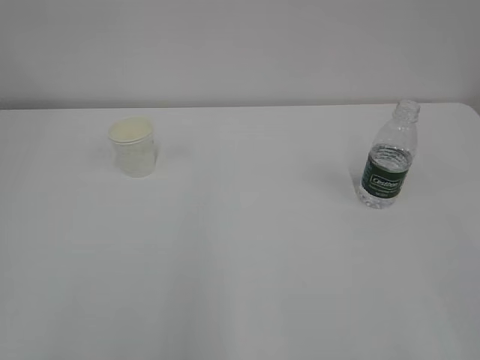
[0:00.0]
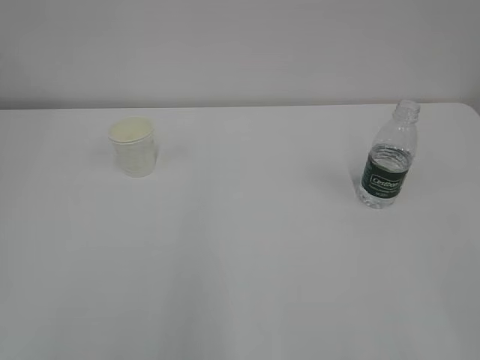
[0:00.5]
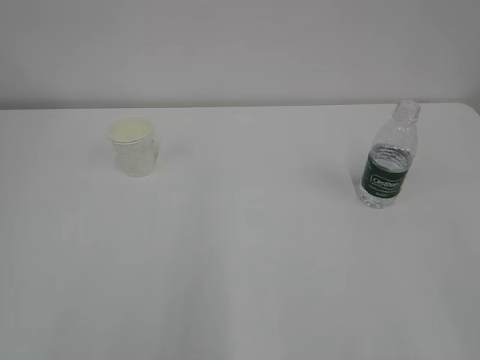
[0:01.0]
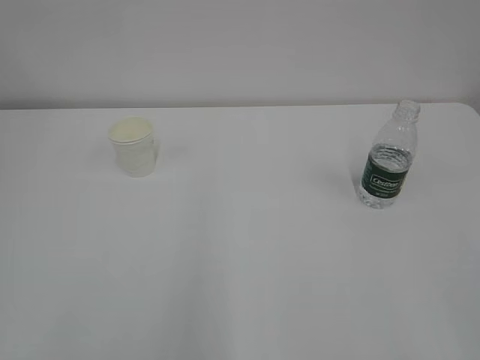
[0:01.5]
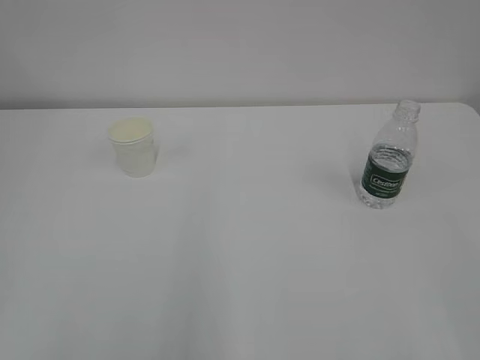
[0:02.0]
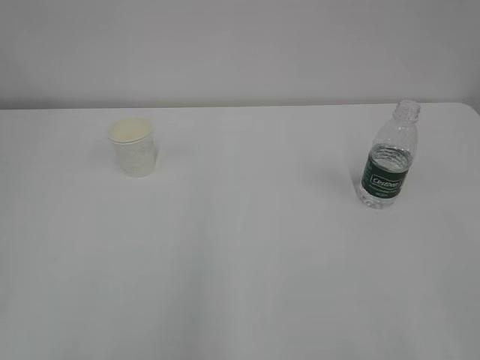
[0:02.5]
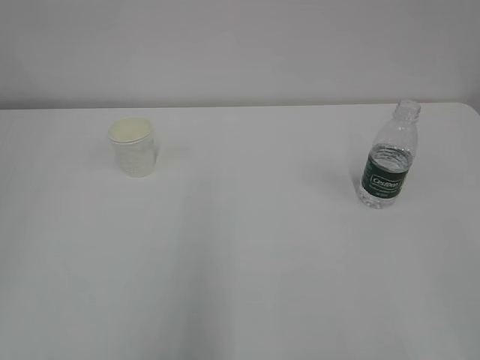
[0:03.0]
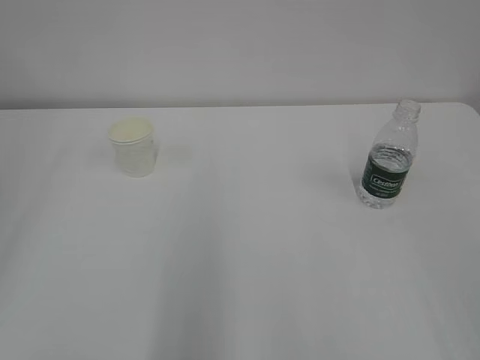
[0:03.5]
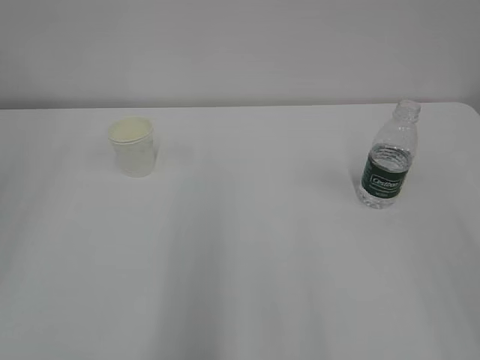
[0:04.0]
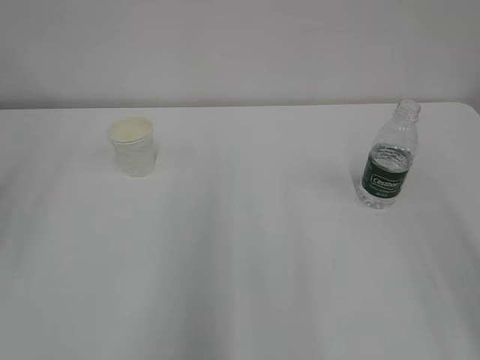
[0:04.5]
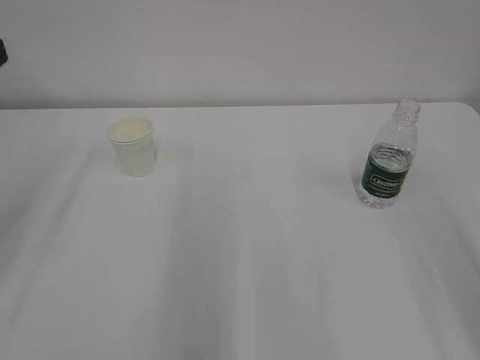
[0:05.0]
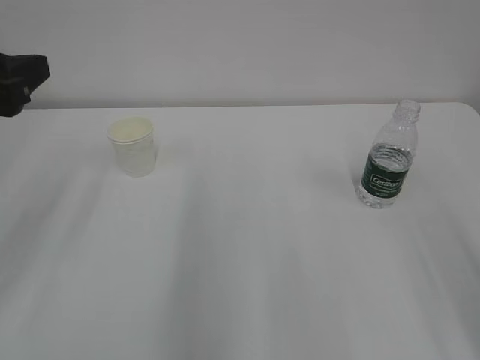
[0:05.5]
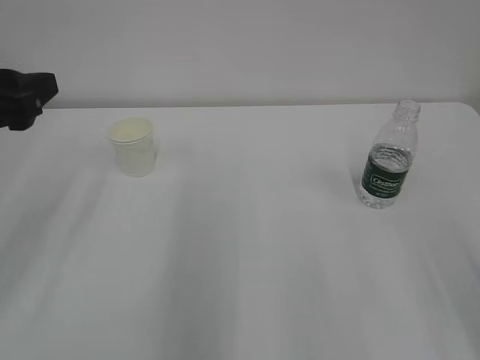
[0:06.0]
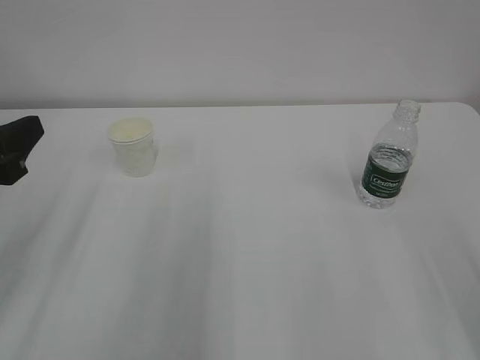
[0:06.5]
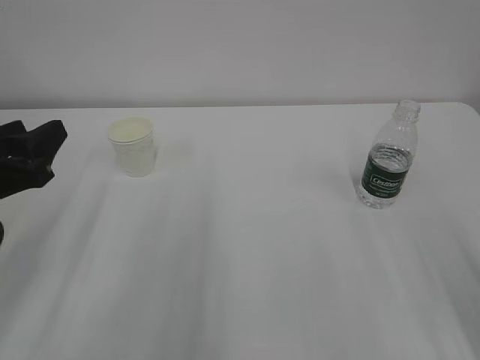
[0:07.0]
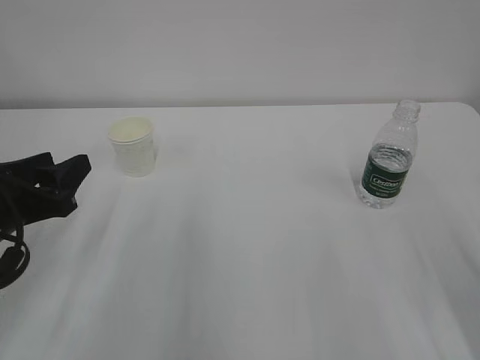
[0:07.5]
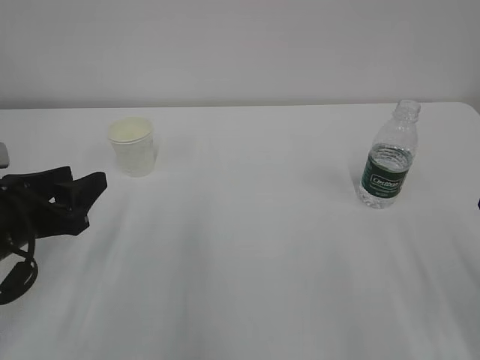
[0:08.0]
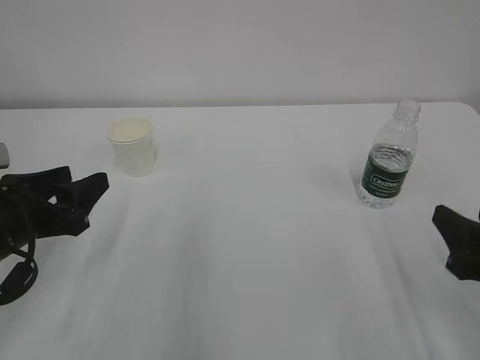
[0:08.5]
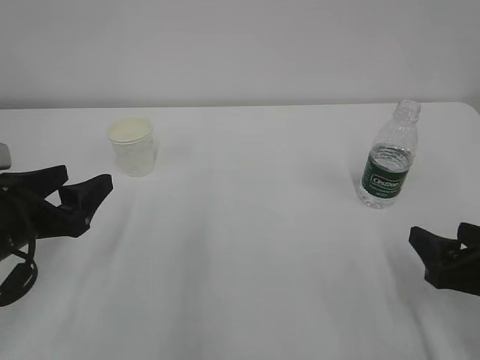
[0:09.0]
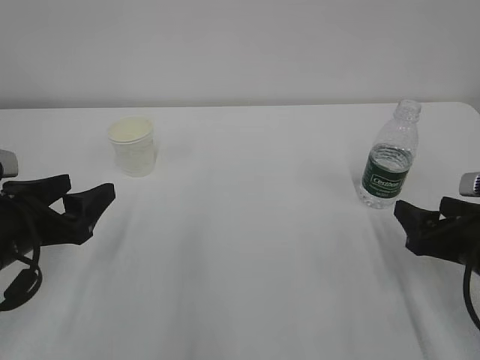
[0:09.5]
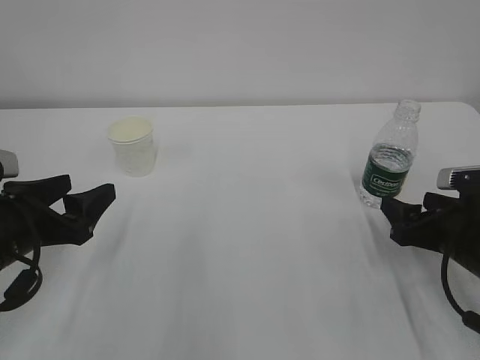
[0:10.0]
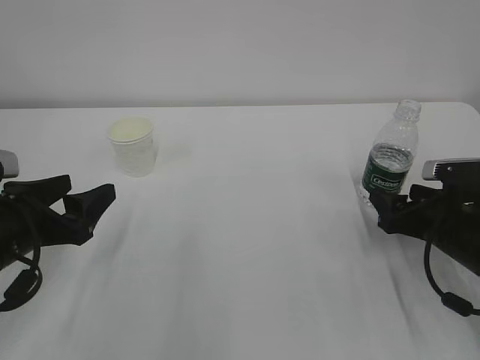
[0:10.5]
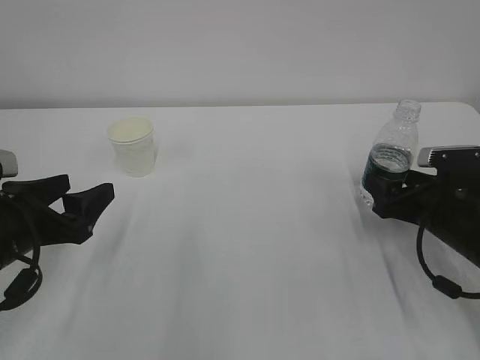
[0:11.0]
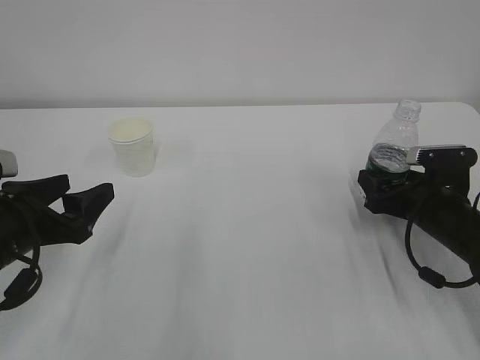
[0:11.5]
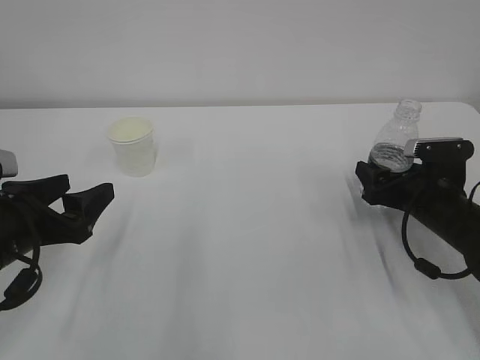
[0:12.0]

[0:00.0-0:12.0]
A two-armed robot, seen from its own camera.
0:04.0 to 0:06.0: The left gripper goes some 15 cm forward, downward and to the right.
0:06.0 to 0:08.0: The left gripper moves downward, roughly 10 cm.
0:08.0 to 0:10.0: The left gripper opens its fingers. The right gripper shifts approximately 15 cm forward and downward, and opens up.
0:10.0 to 0:12.0: The right gripper heads forward, covering roughly 10 cm.

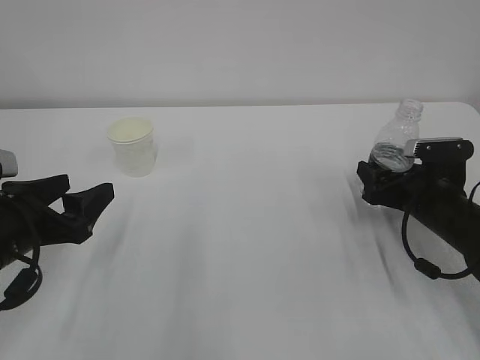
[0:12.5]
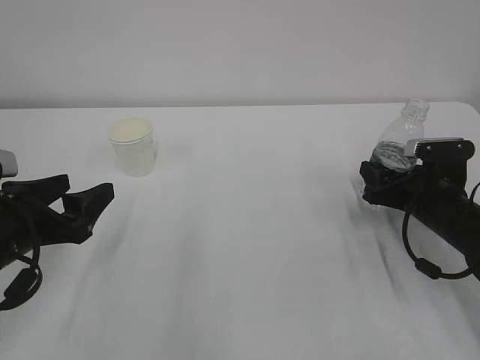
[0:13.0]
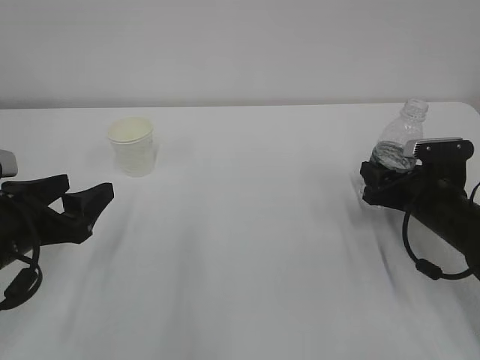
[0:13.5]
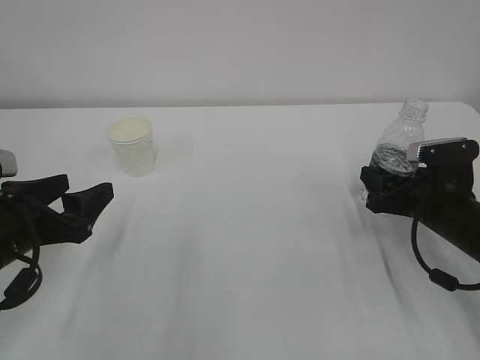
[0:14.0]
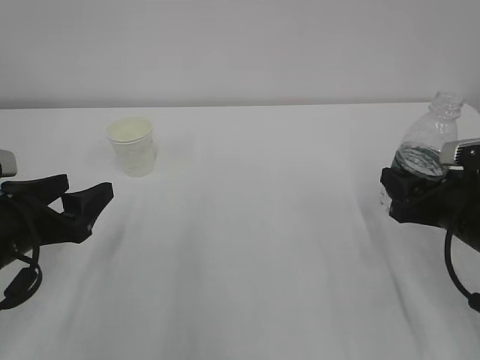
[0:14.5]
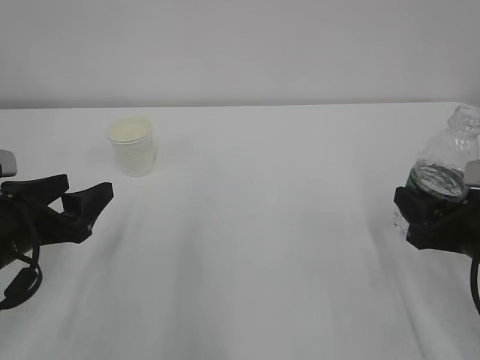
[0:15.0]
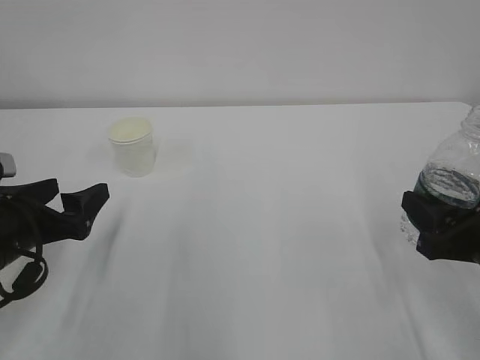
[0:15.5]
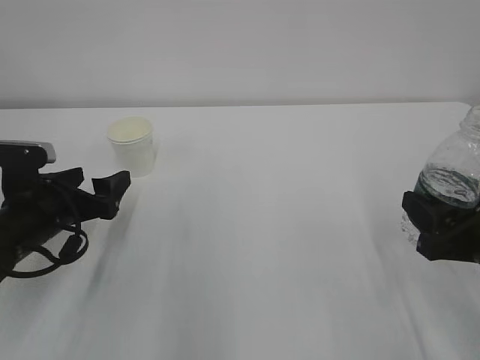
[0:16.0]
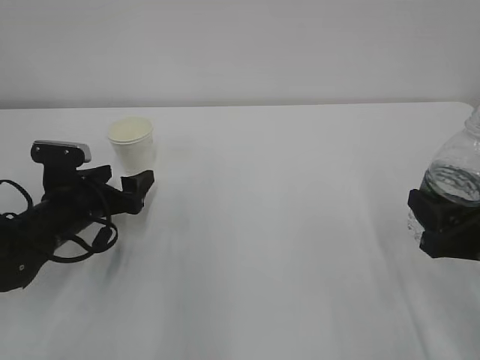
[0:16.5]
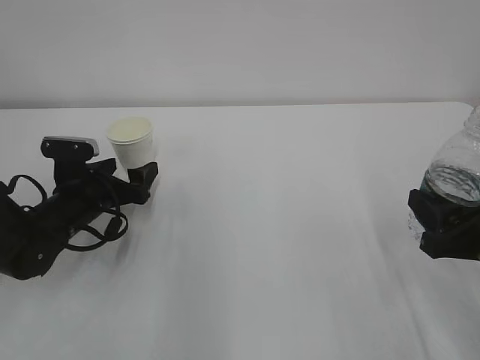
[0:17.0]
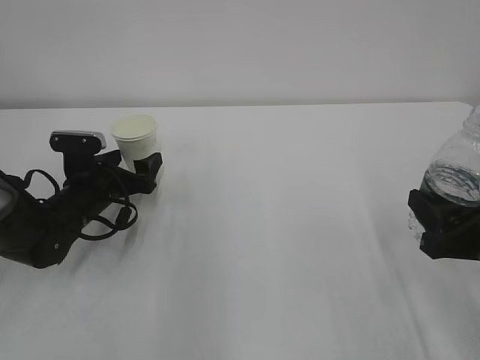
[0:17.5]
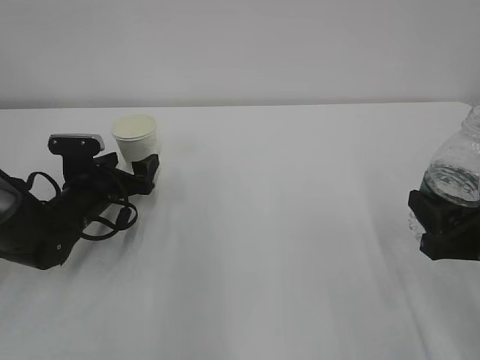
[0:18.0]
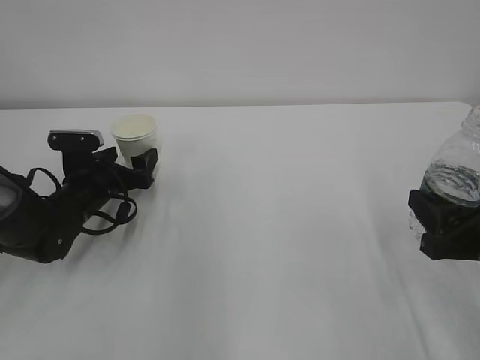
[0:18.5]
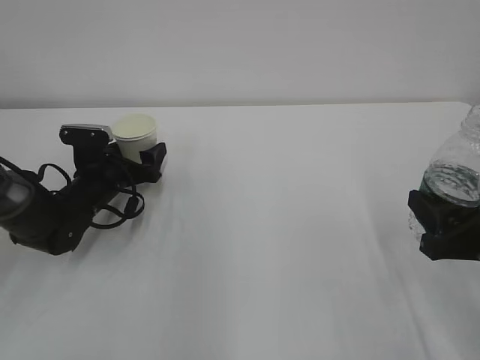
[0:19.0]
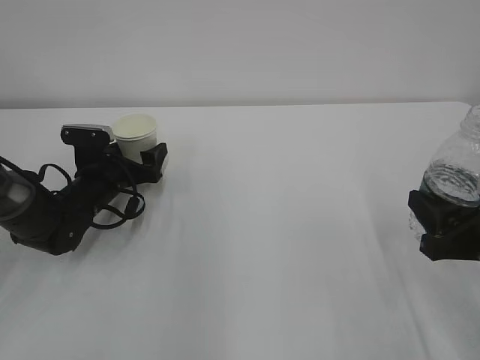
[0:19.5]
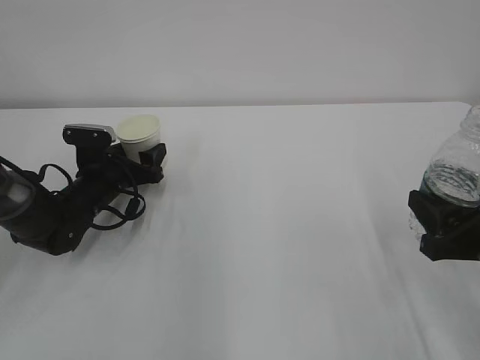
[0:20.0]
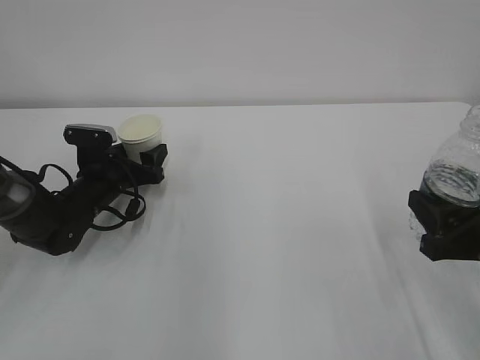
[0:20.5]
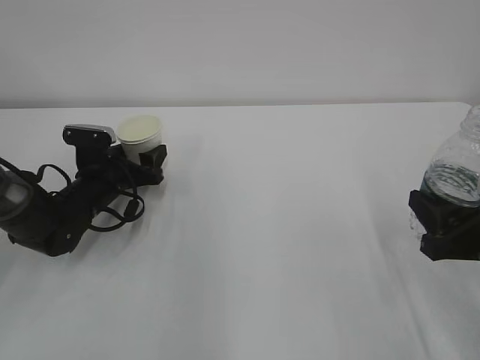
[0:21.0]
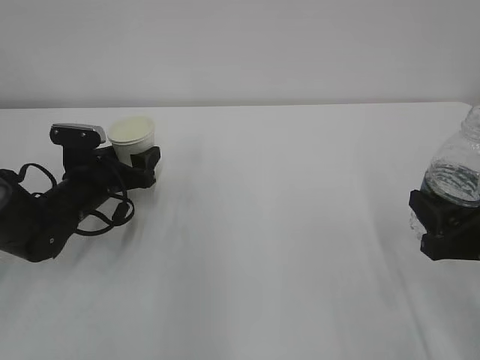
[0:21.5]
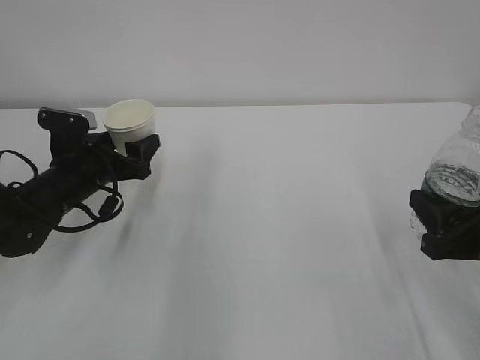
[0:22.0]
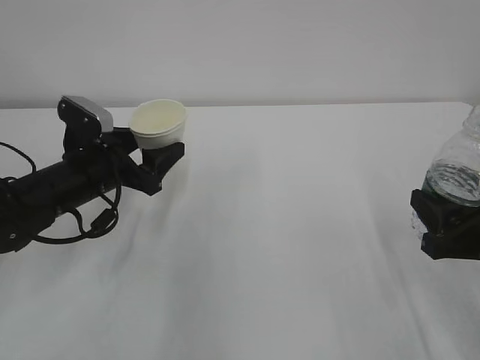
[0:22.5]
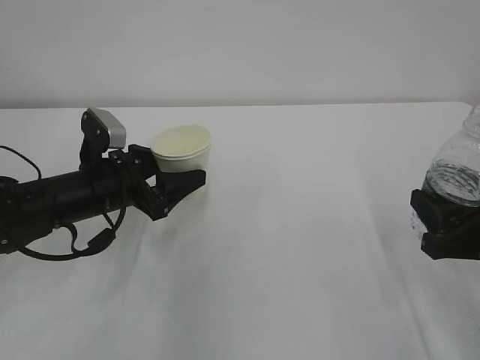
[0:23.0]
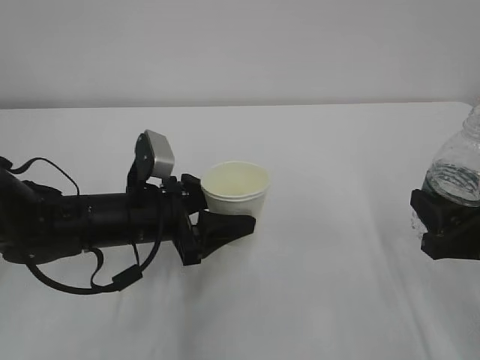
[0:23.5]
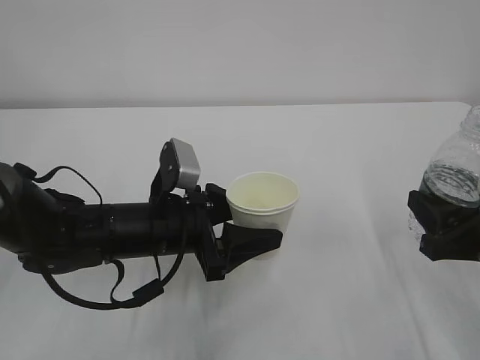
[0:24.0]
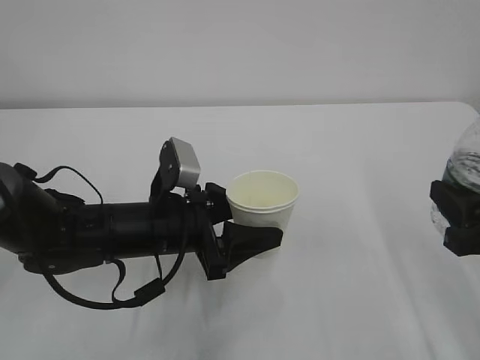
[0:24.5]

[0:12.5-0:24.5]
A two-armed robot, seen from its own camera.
0:12.5 to 0:14.5: The right gripper heads backward, covering roughly 5 cm, and closes its fingers.
0:14.5 to 0:16.5: The right gripper is displaced backward by some 5 cm; the left gripper goes some 10 cm forward and downward, and opens its fingers.
0:16.5 to 0:18.5: The left gripper heads forward, covering roughly 5 cm.
0:18.5 to 0:20.5: The left gripper closes.
0:20.5 to 0:22.5: The left gripper travels upward and backward by approximately 10 cm.
0:22.5 to 0:24.5: The left gripper shifts roughly 10 cm to the right and backward.

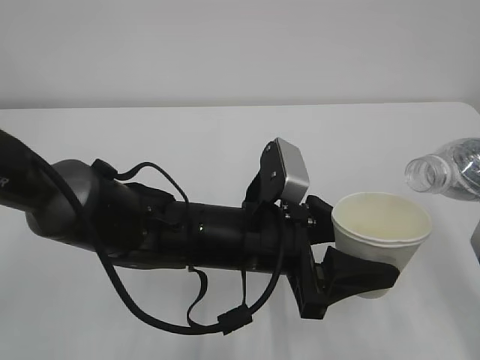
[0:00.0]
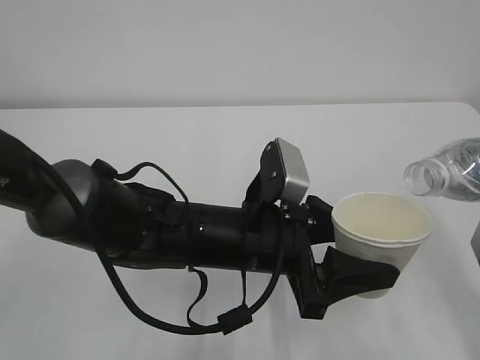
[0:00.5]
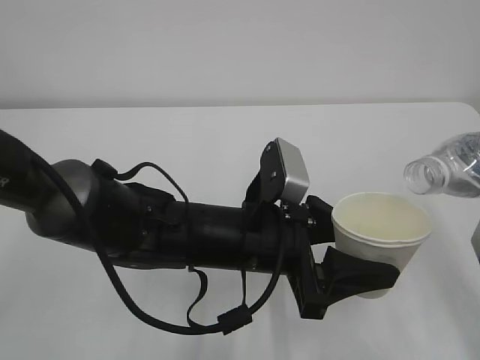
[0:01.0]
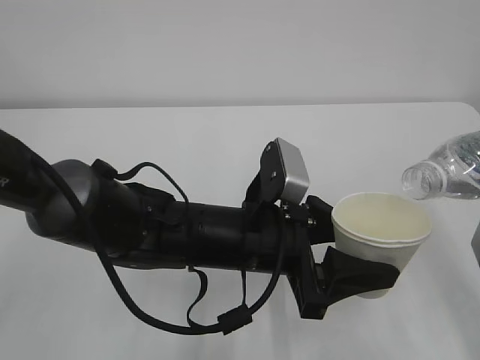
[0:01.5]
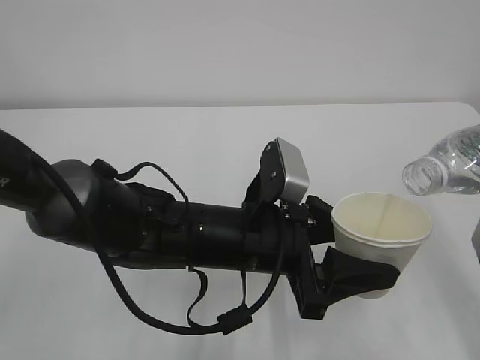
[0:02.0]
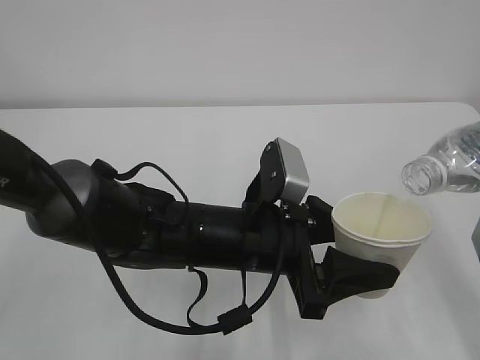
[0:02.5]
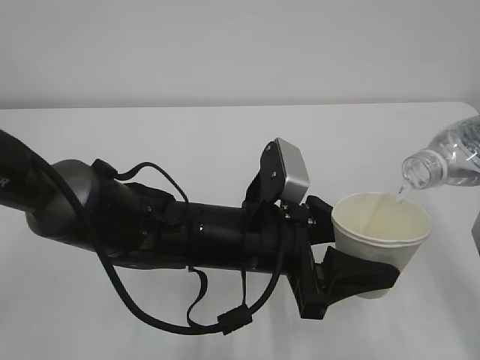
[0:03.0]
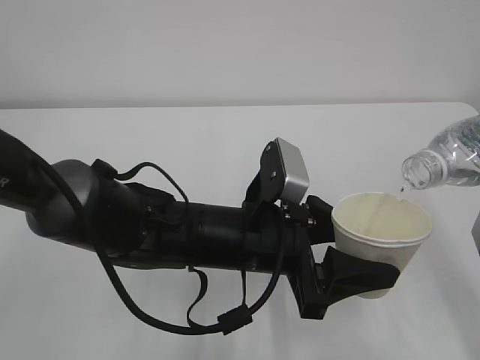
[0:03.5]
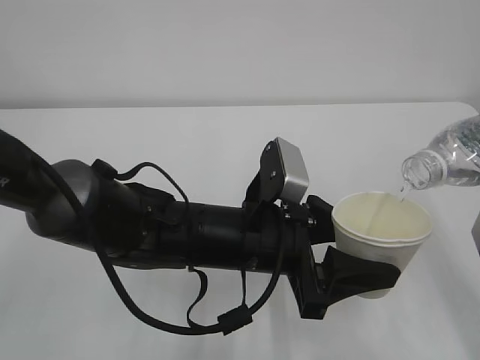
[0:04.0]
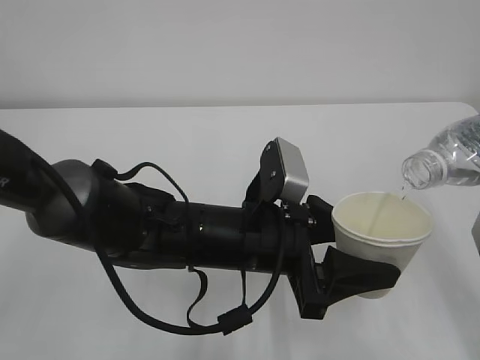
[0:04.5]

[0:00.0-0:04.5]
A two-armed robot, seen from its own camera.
0:00.0 to 0:02.0: The grippers make only small movements.
0:02.0 to 0:04.5: Both grippers stay put.
